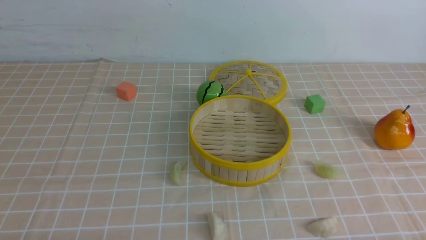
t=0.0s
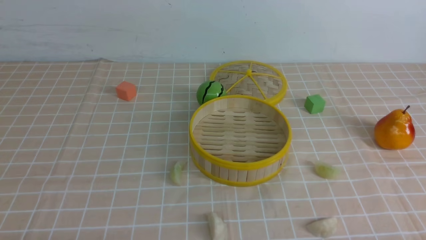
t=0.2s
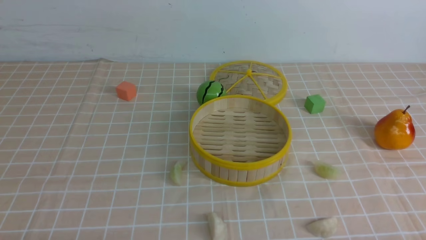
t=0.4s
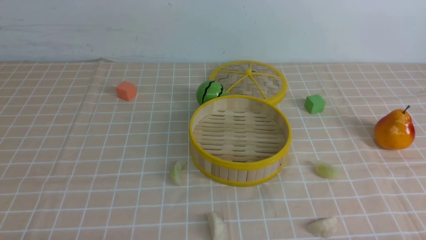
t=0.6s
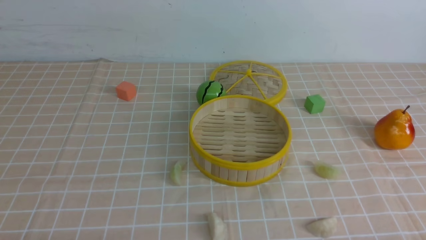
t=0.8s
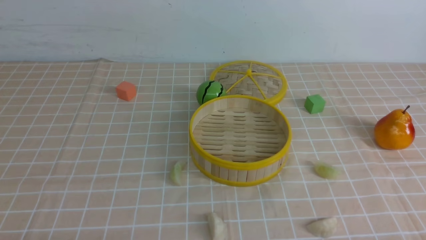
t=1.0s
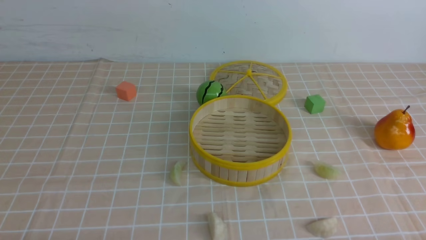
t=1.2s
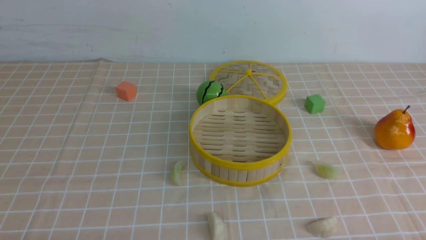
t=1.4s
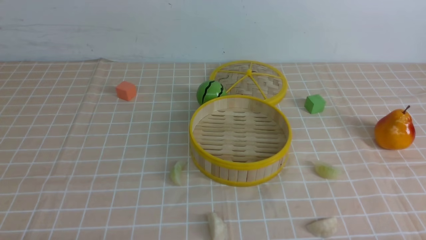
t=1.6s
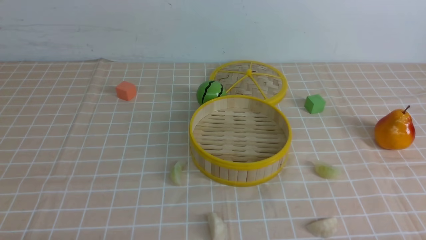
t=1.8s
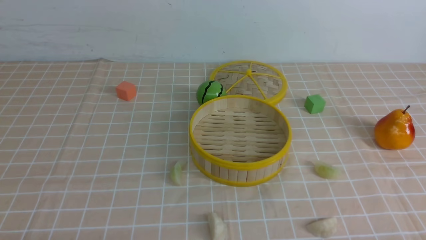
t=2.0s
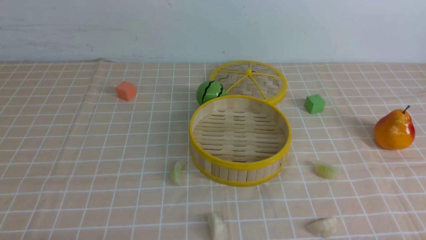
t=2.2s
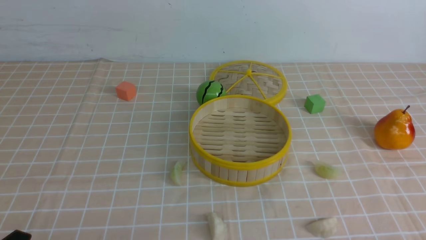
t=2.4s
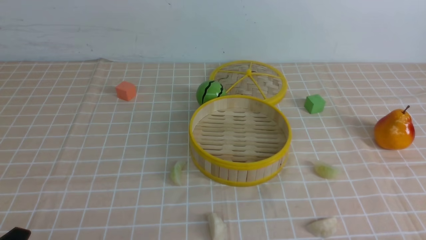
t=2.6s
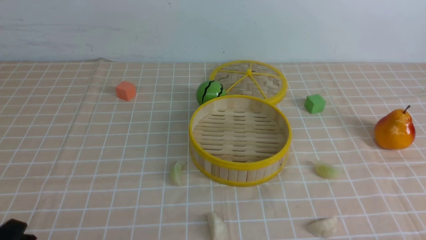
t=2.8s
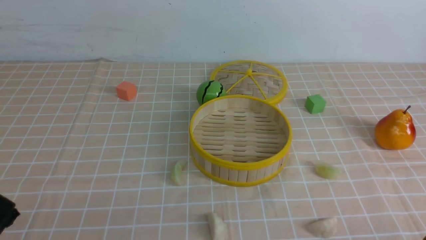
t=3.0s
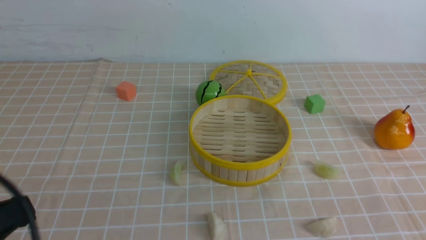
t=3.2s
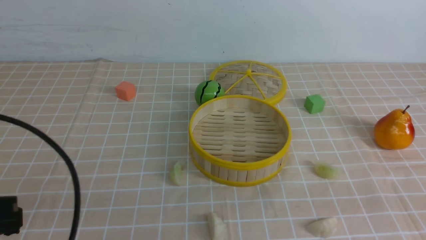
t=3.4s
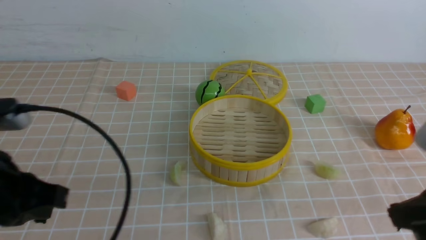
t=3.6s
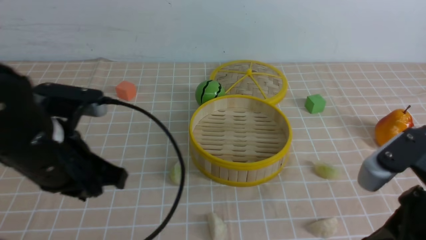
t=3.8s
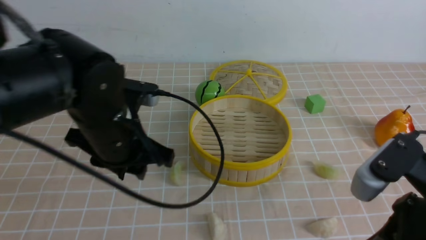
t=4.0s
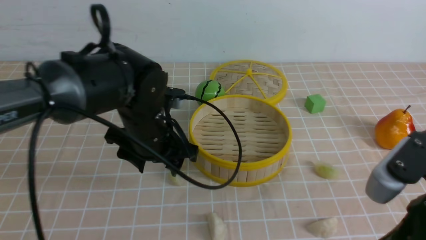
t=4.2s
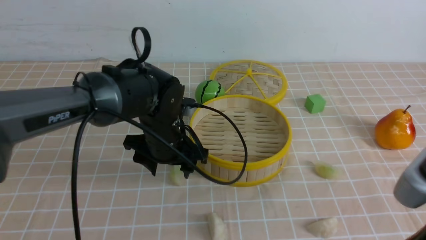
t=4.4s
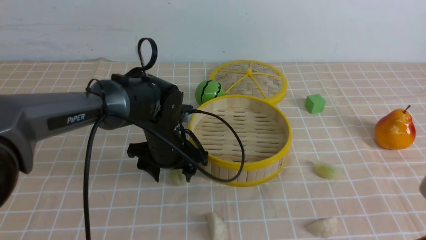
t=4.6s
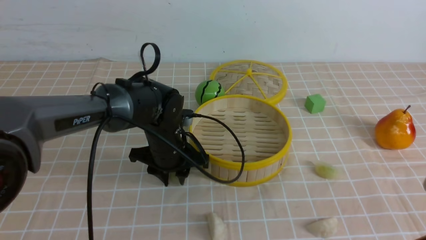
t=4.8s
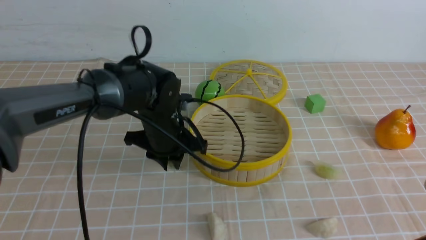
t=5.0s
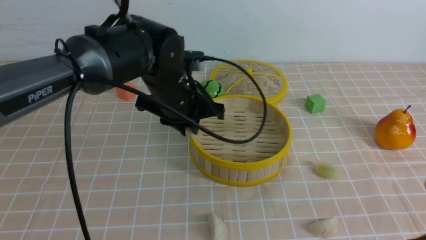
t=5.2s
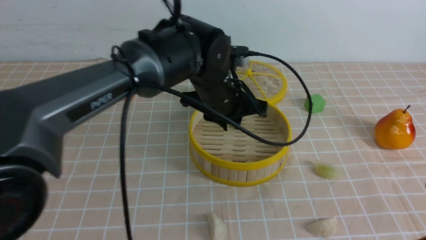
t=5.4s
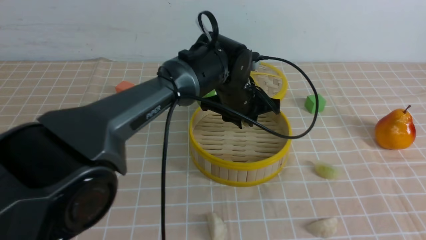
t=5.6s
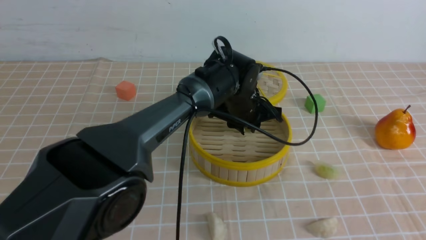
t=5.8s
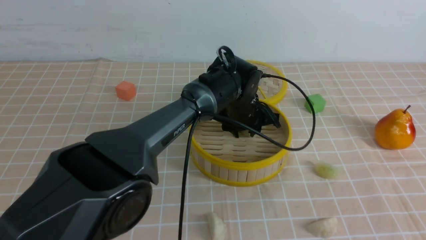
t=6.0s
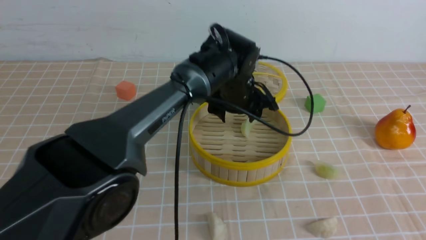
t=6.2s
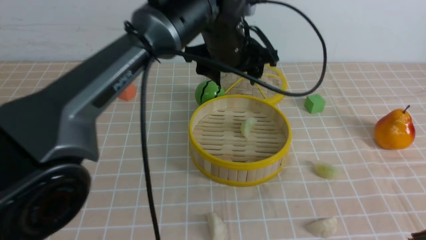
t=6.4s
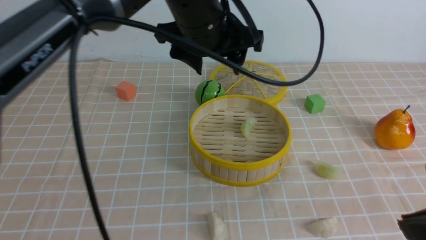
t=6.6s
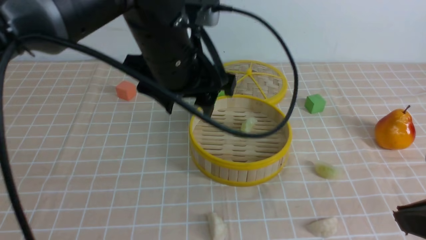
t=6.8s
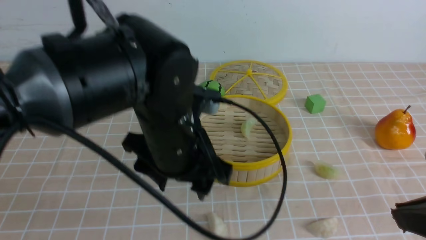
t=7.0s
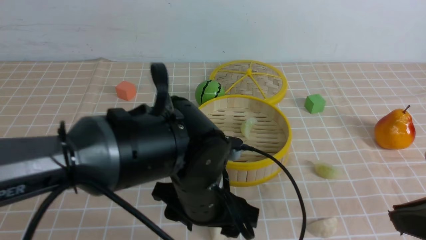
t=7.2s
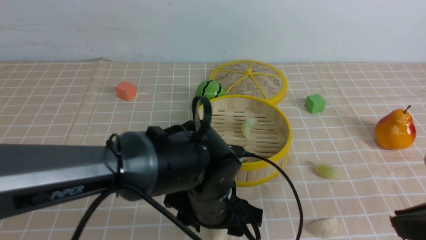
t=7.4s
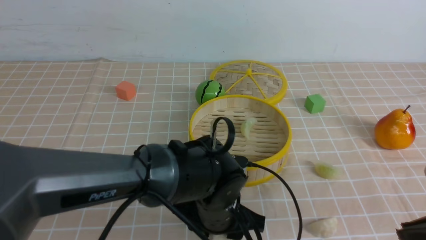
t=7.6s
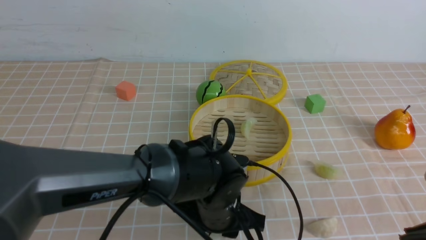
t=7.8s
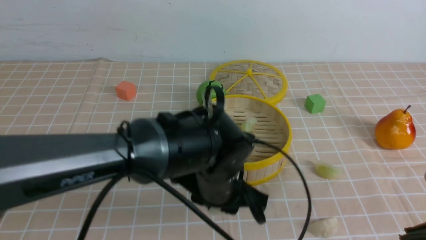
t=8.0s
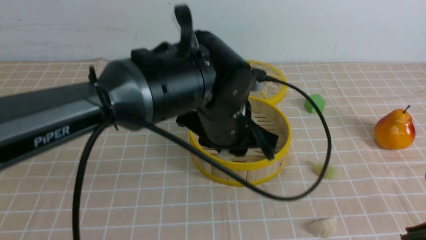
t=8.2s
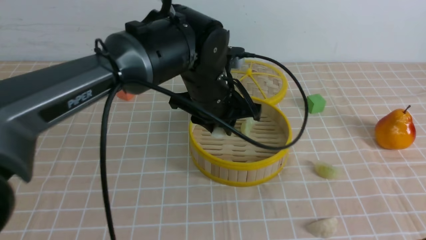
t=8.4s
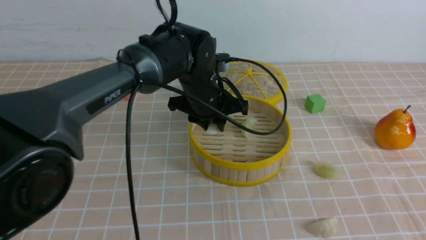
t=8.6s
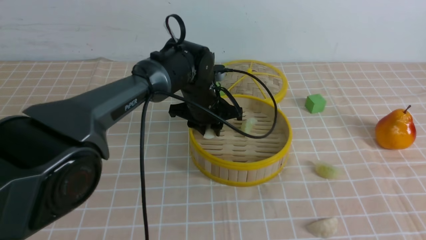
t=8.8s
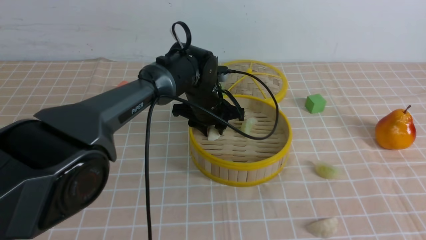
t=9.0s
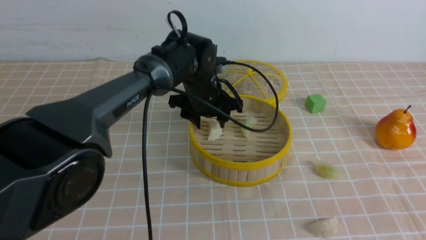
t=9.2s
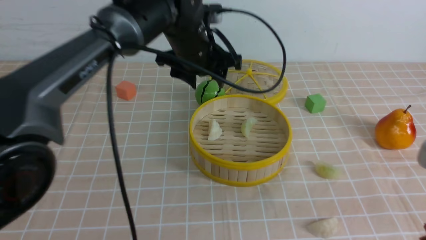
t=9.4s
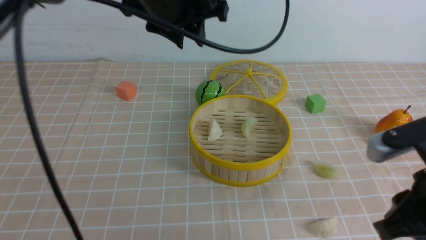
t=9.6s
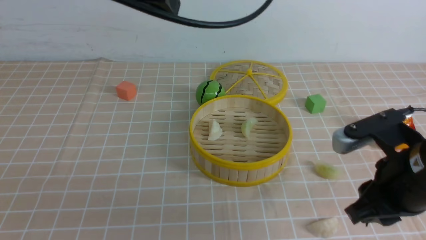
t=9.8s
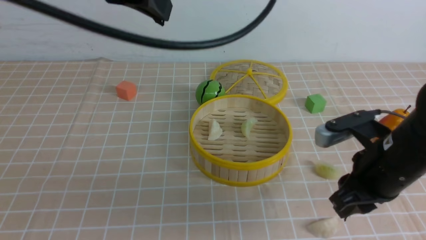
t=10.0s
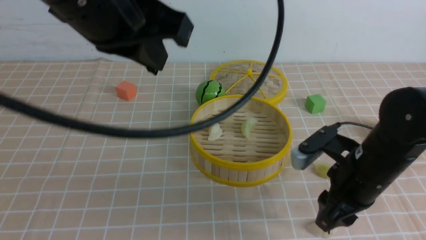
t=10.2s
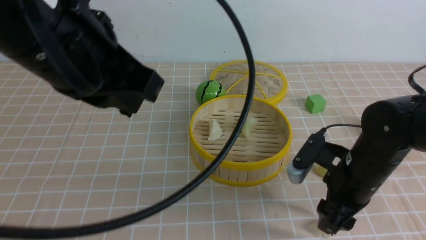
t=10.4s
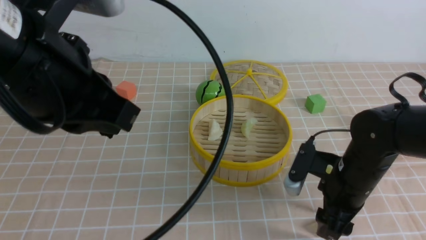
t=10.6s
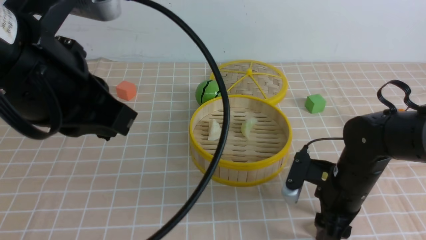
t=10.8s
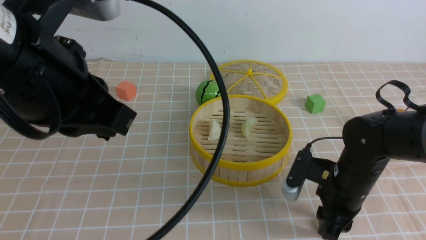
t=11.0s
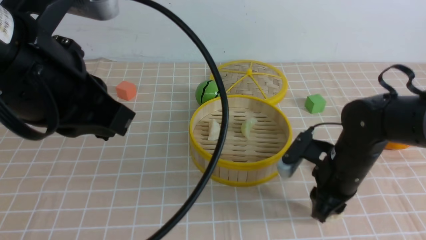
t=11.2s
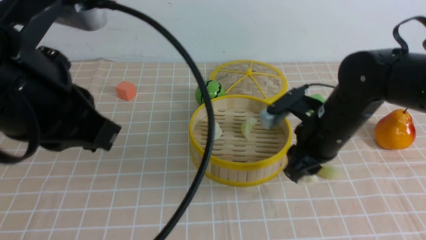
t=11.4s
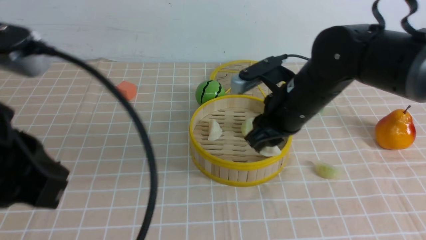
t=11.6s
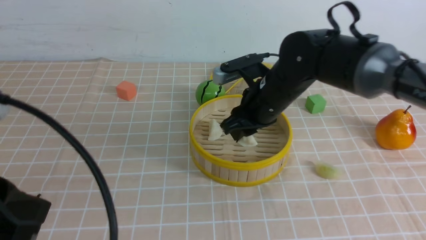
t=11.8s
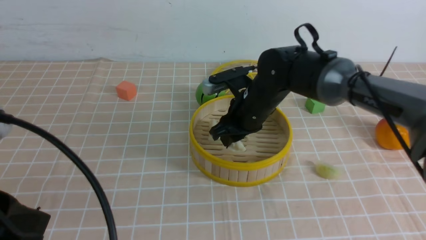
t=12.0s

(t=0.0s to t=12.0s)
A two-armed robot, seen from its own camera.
Task of the whole recording: put the dumplings into the steamer on the table with the brown tablecloth.
Step, t=0.0s - t=4.8s: use the left arm to grab a dumpling.
Step, t=5.0s - t=6.2s: use the left arm to put the dumpling into the steamer.
Step, t=6.4s - t=7.8s: use the left arm to grab a dumpling.
Step, t=8.0s - t=9.2s: use the left arm to put the dumpling into the steamer.
Step, t=9.4s - t=11.0s: use the right arm to grab a dumpling.
t=0.0s - t=1.6s: The two grippers keep their place.
t=3.0s - t=4.4s: The right gripper moves upward, to the left and forward, approximately 15 cm. The left gripper goes some 35 cm forward and to the right, and opens.
t=4.4s - t=6.0s: The left gripper shifts about 15 cm to the right and forward.
t=6.0s - t=7.6s: The left gripper shifts approximately 20 cm backward, and reaches about 15 cm upward, then returns.
t=7.6s - t=9.0s: The left gripper travels forward by roughly 20 cm.
t=9.0s - t=10.4s: The right gripper moves forward and downward, some 25 cm, and opens its fingers, while the left gripper moves backward, upward and to the left, roughly 35 cm, and closes its fingers.
t=10.4s - t=12.0s: The right gripper moves forward and to the left, approximately 20 cm; the left gripper goes approximately 15 cm backward, to the left and downward.

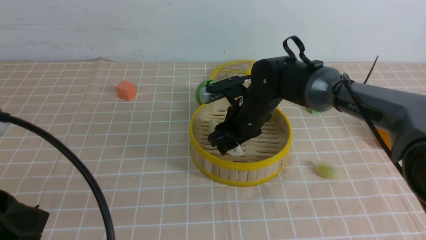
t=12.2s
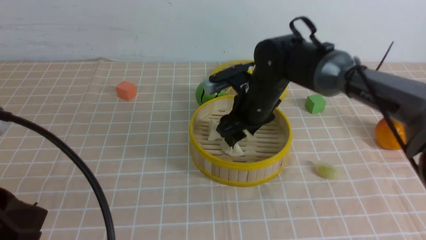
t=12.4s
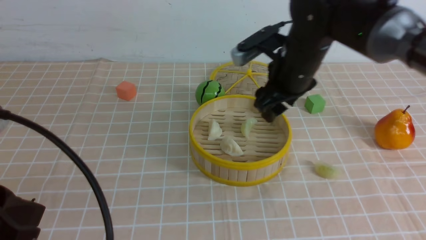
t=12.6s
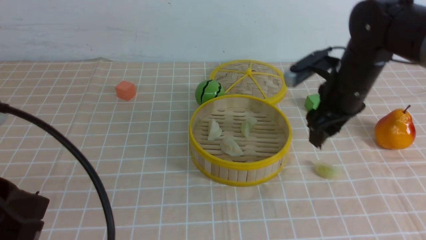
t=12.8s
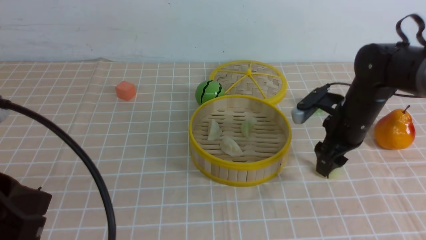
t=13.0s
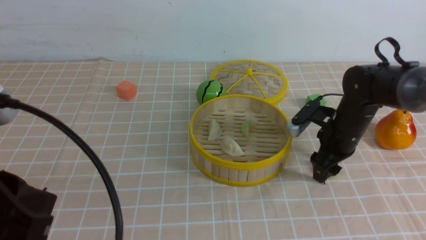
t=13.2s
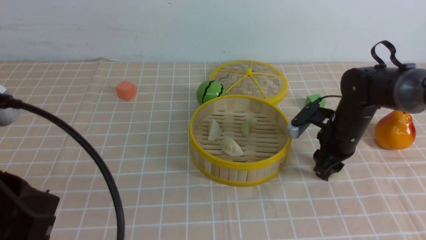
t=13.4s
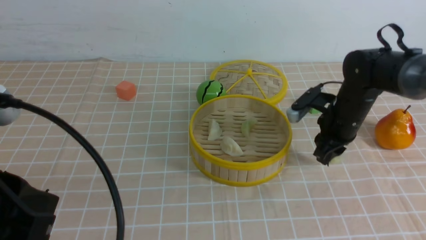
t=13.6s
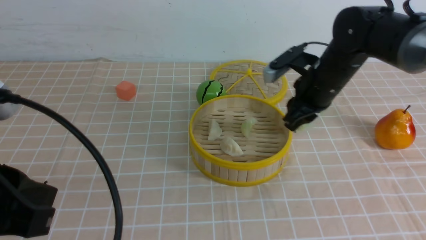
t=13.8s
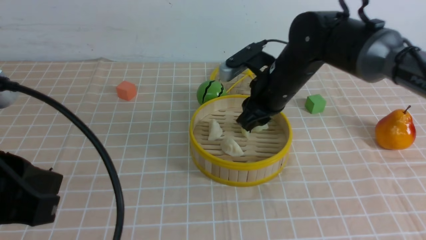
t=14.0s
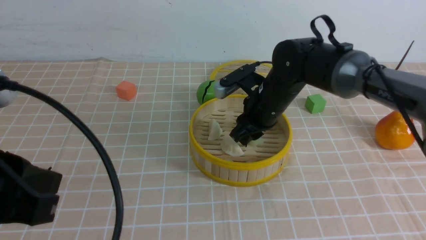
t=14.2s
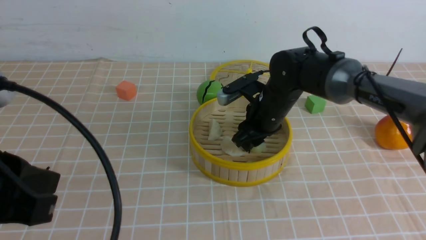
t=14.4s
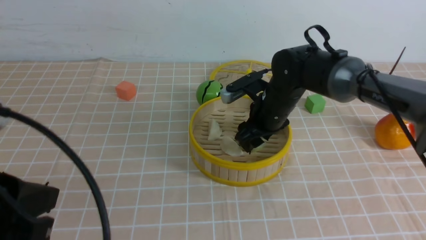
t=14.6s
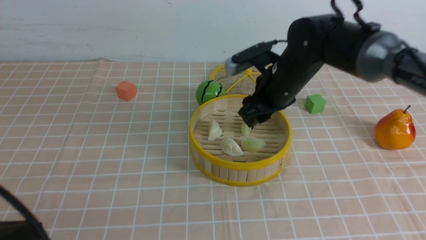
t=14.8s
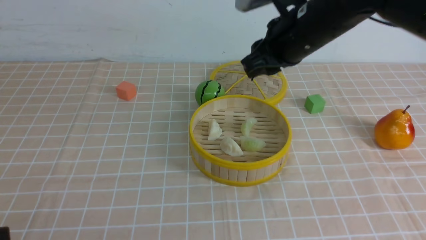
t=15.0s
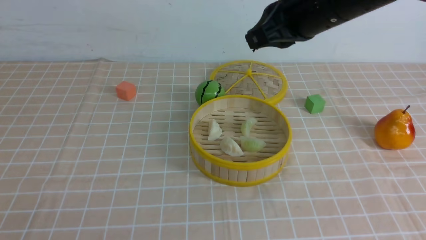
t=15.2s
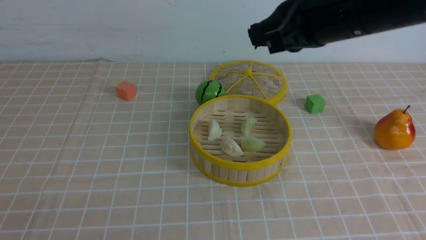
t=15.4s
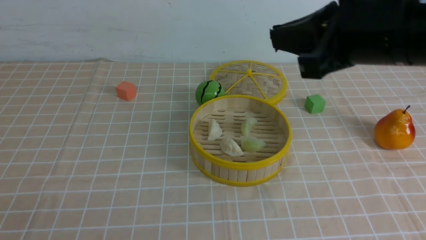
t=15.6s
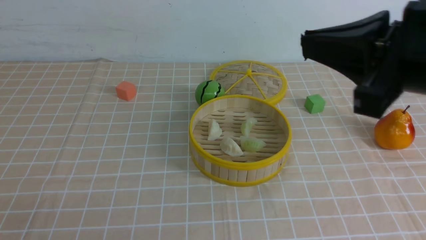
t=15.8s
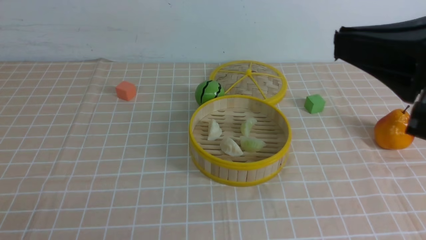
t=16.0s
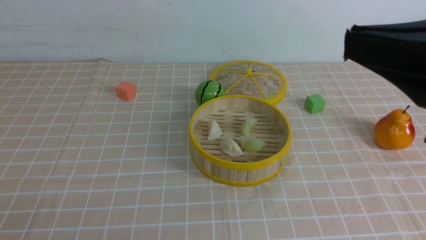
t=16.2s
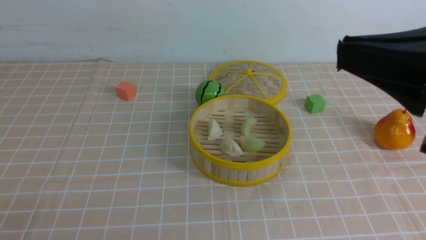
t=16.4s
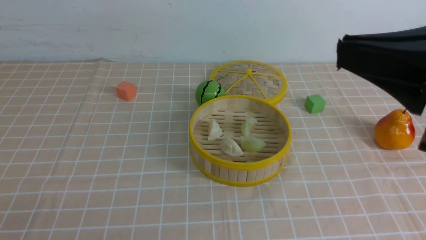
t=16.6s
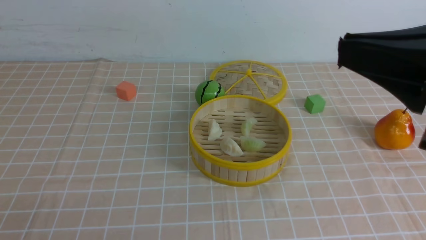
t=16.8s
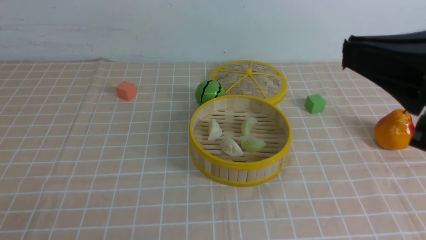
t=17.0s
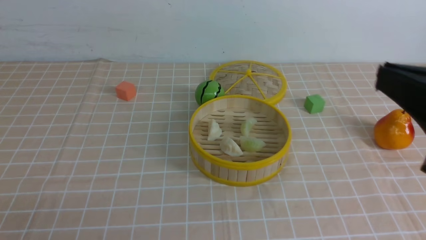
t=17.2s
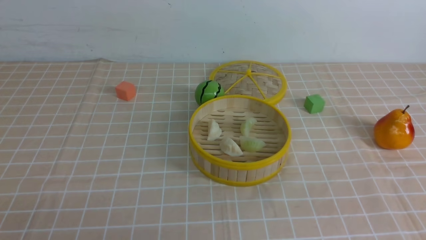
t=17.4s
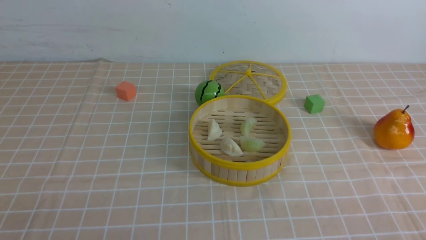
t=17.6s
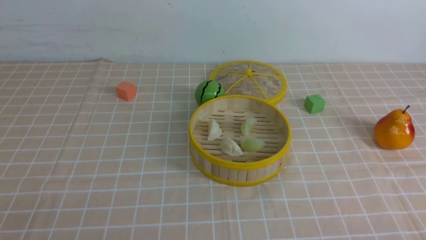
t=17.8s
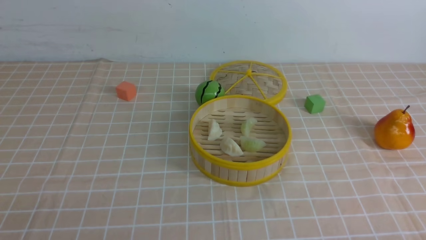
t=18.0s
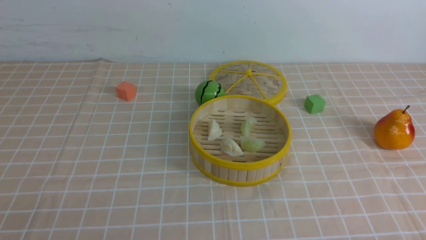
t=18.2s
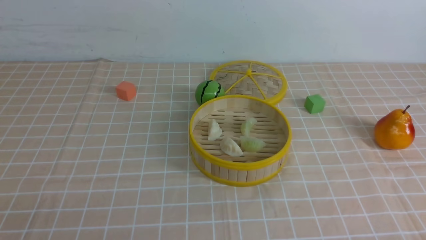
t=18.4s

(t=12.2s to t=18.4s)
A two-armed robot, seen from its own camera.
Task of the whole recording: put the dumplings into the steamer on the table with the brown tablecloth.
Step, t=12.8s - t=13.2s: use the right arm to grab a dumpling.
Step, t=13.4s - t=14.6s: use the right arm to put the dumpling into the steamer.
t=12.2s - t=13.8s: The right gripper is displaced to the right by about 10 cm.
t=13.8s - t=15.4s: The right gripper heads upward and backward, covering some 20 cm, and closes up, while the left gripper moves backward, downward and to the left, about 15 cm.
t=15.4s - t=16.8s: The right gripper is displaced backward and to the right by roughly 15 cm.
t=16.8s - t=18.4s: The right gripper heads downward and to the right, covering about 25 cm.
